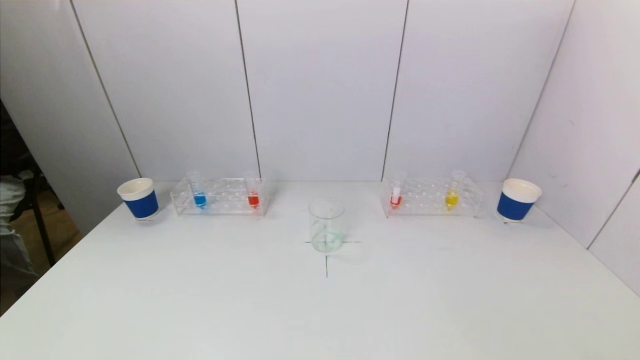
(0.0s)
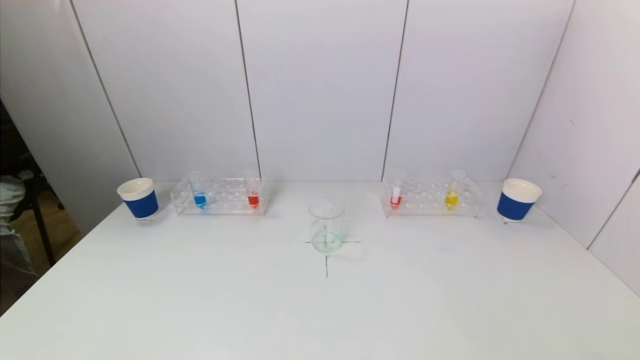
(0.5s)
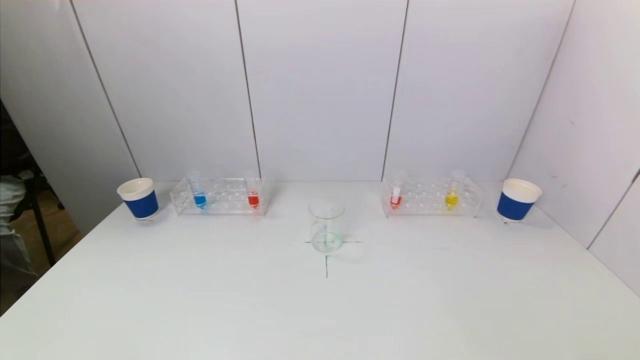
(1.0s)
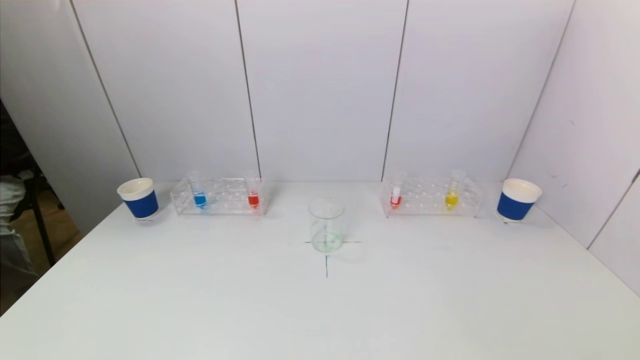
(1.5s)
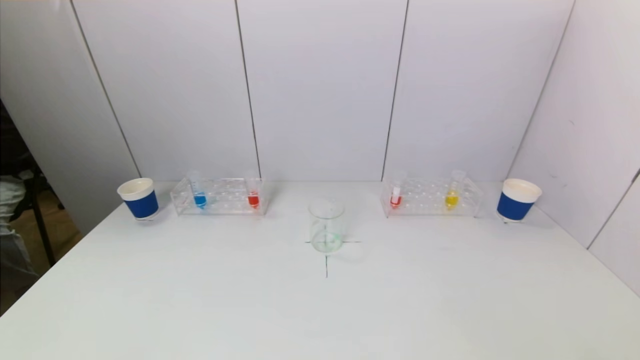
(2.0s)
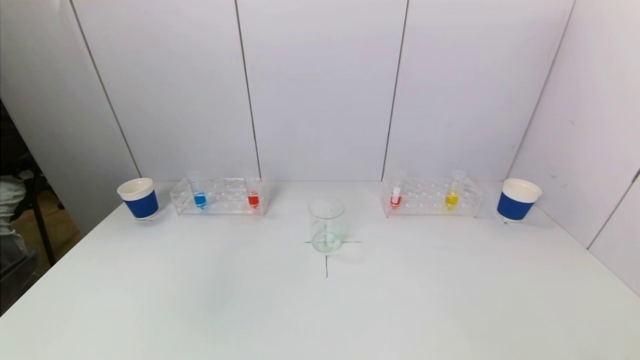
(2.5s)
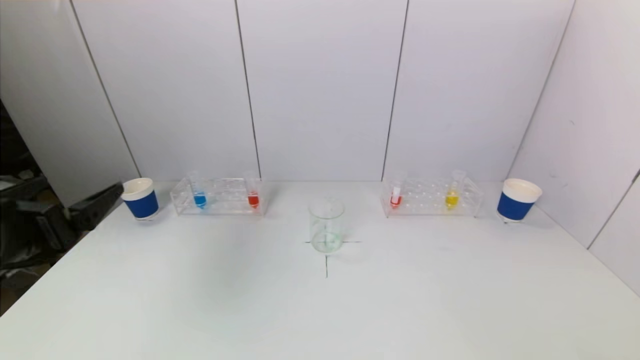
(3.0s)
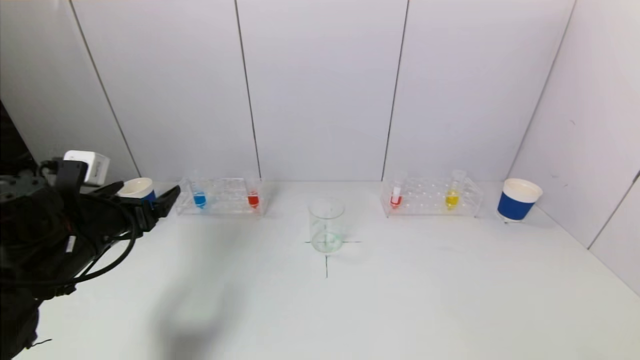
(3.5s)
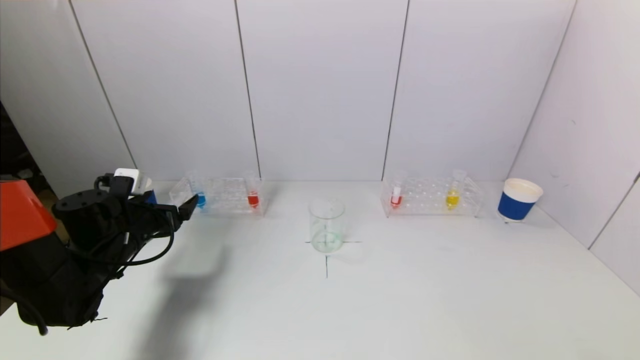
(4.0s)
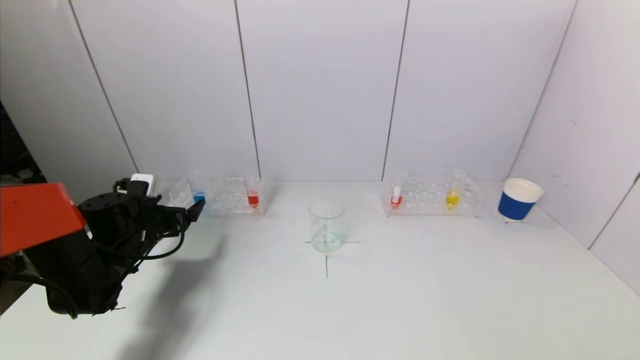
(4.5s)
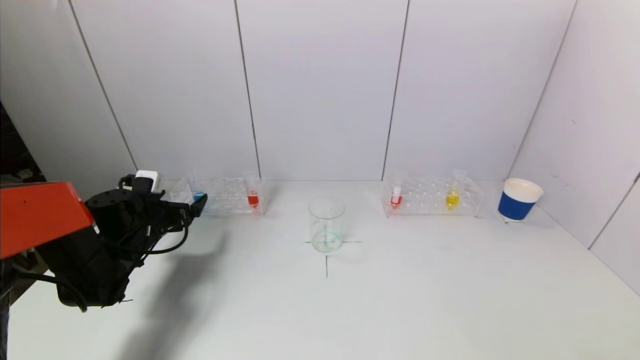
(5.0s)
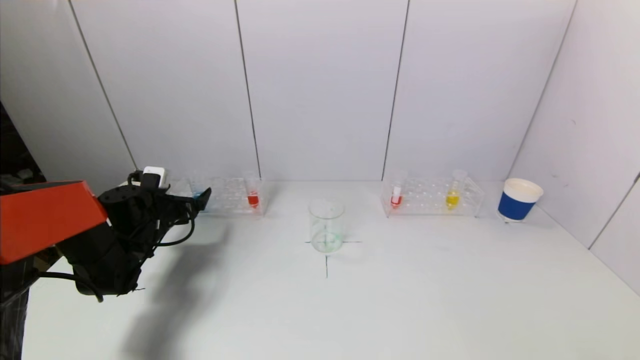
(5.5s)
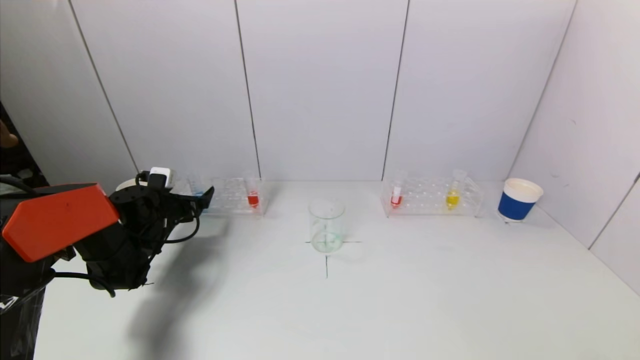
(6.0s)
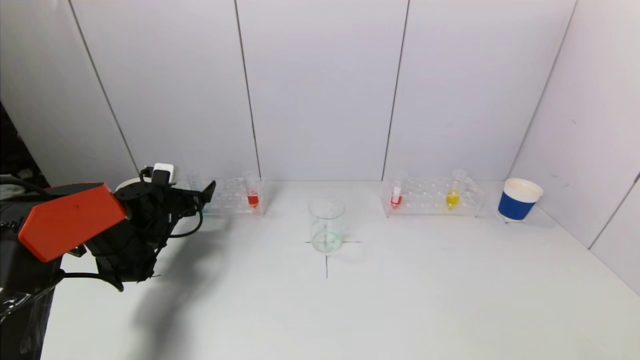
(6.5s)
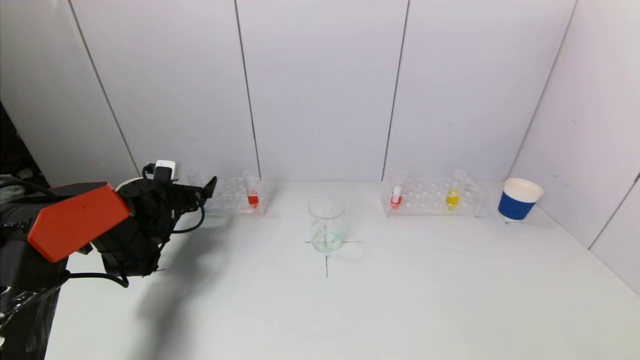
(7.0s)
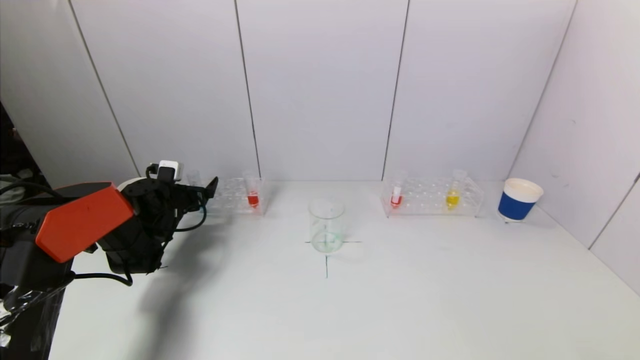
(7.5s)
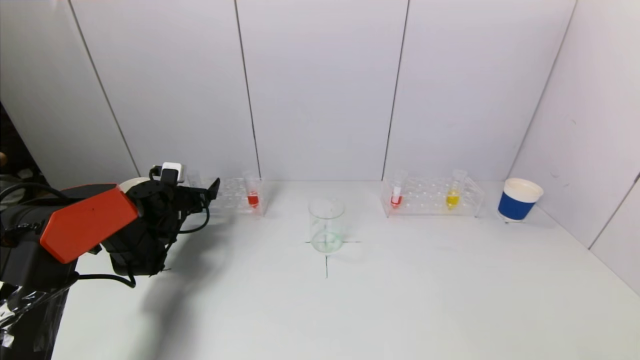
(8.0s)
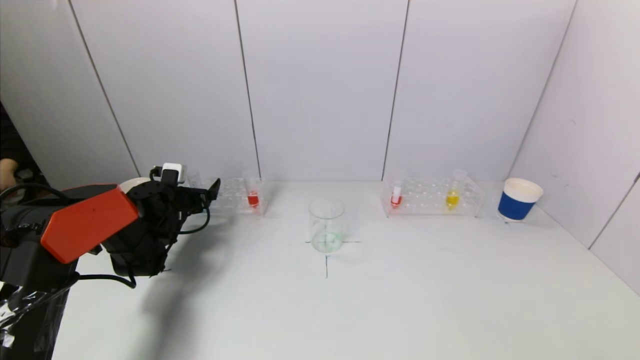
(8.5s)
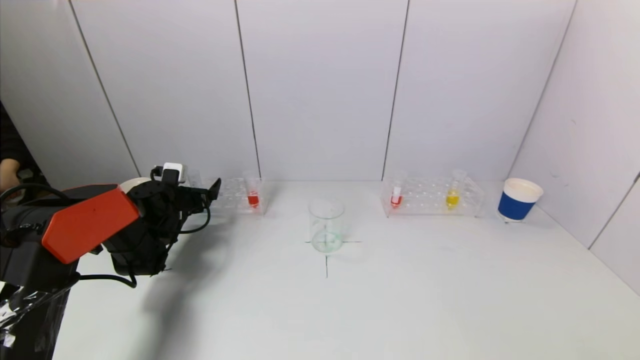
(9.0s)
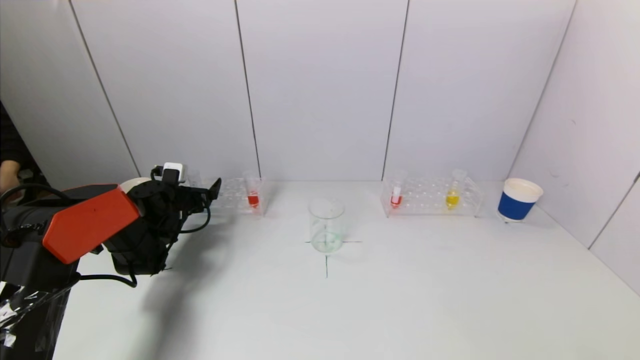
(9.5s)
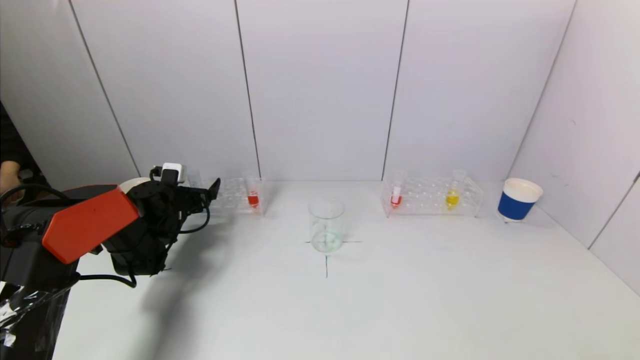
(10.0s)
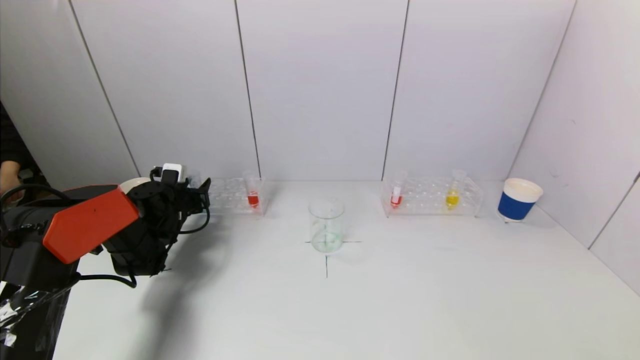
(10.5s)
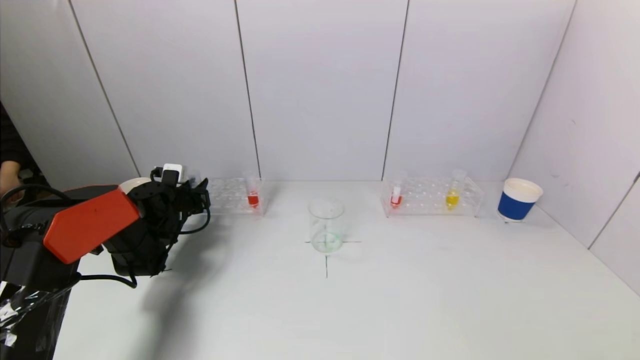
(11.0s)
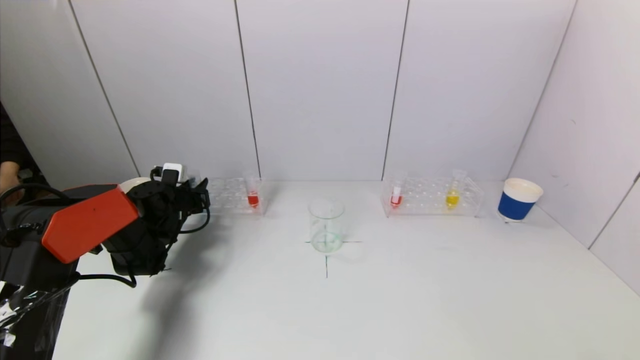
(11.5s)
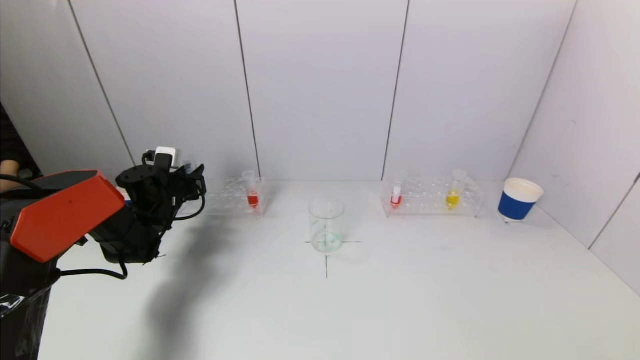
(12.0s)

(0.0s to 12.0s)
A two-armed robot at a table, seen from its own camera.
Task of the whole recording: pick up a test tube with pigment on left test tube rack and a test tube with pigment on right test tube rack by grippers and pour them into the beaker.
Step, 0.0s - 11.0s: Grasp the blue reagent with the left gripper.
2.0s - 4.0s: The left gripper goes roughly 35 cm forward.
4.0s - 6.0s: The left gripper moves forward, approximately 10 cm.
6.0s - 8.0s: The grippers move only a little.
8.0s - 10.0s: Both grippers stay put.
10.0s - 12.0s: The left gripper closes up.

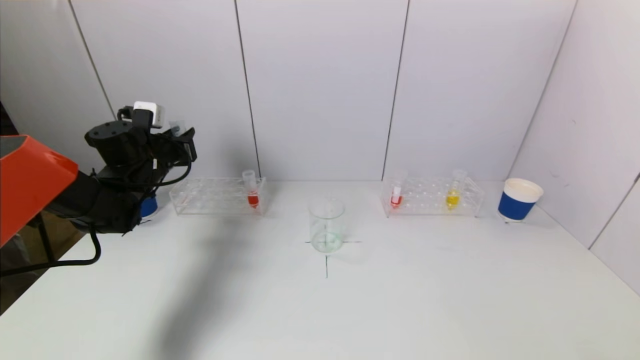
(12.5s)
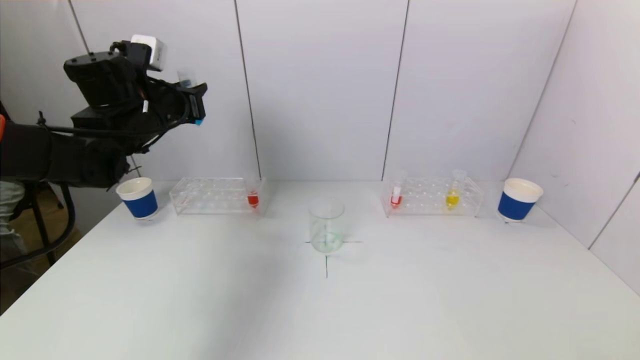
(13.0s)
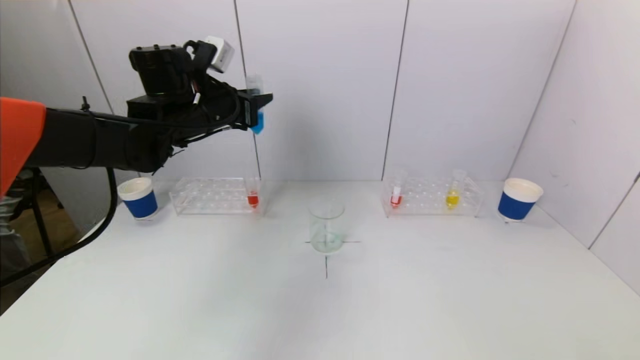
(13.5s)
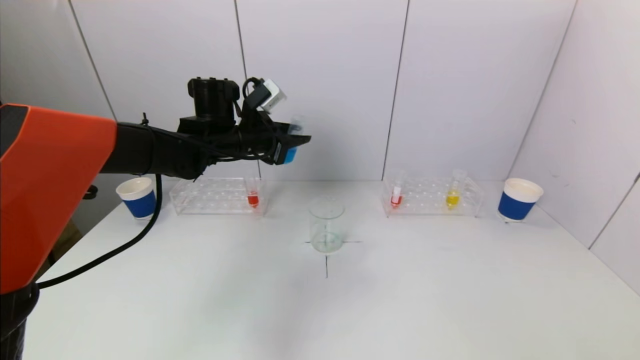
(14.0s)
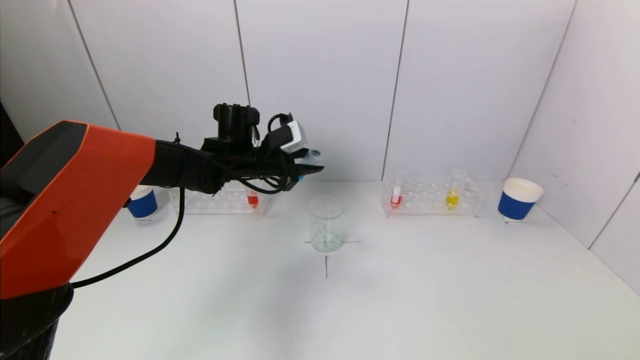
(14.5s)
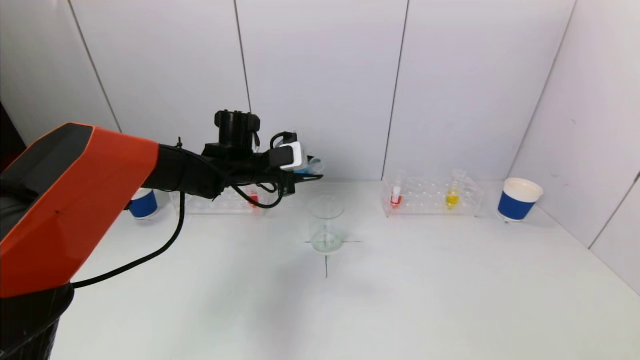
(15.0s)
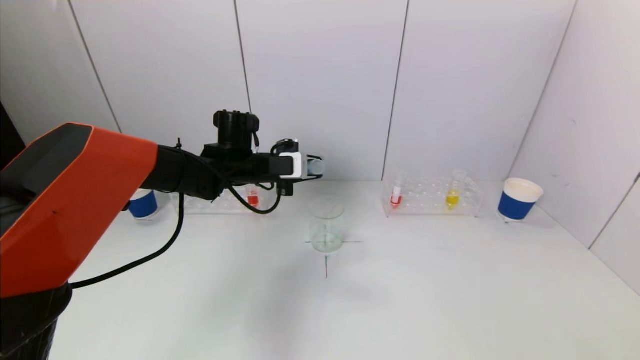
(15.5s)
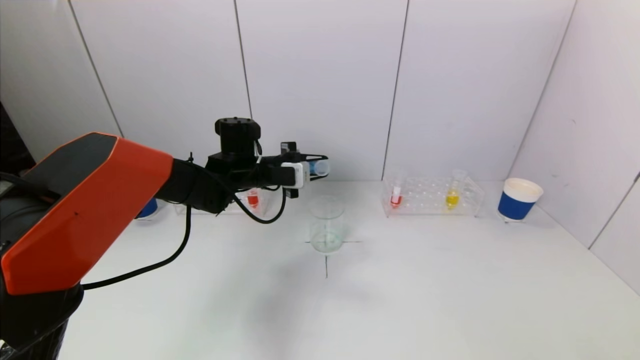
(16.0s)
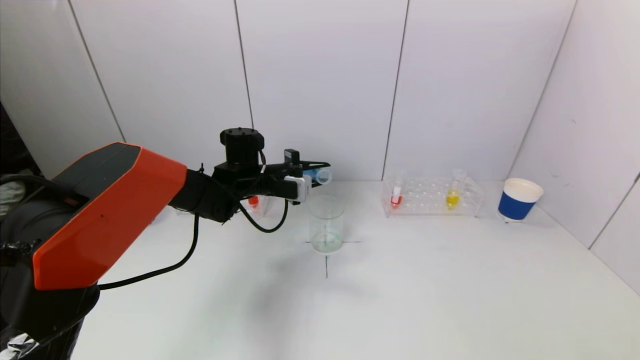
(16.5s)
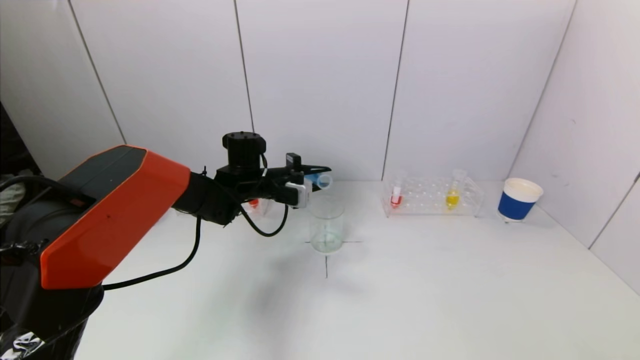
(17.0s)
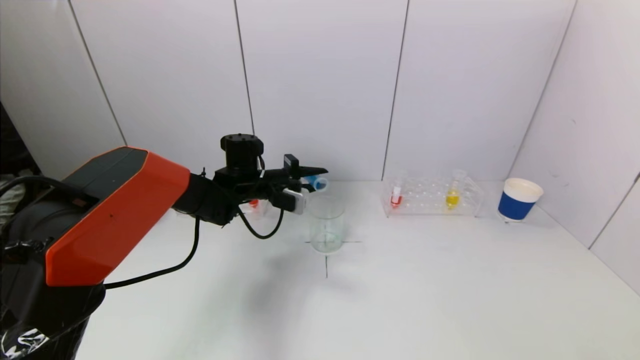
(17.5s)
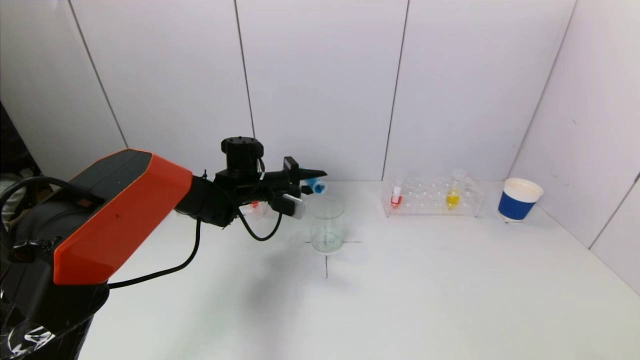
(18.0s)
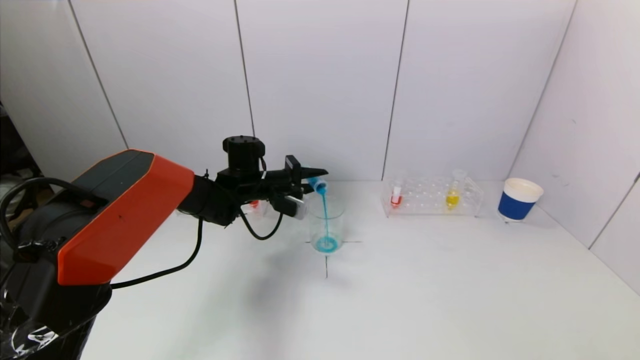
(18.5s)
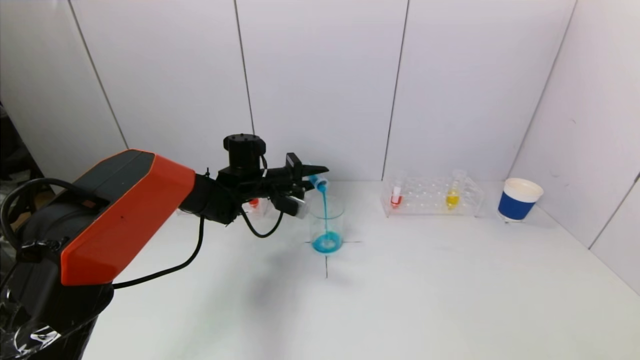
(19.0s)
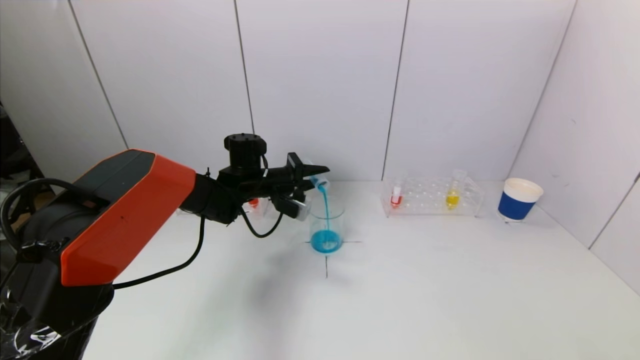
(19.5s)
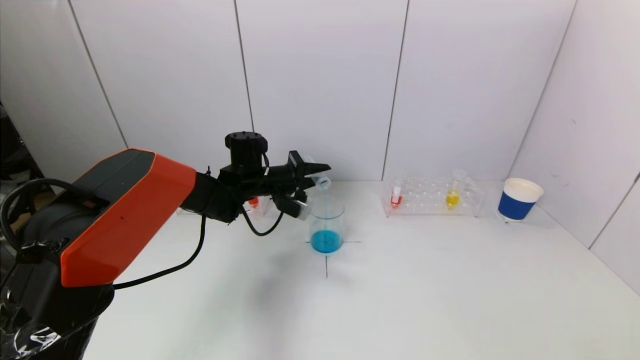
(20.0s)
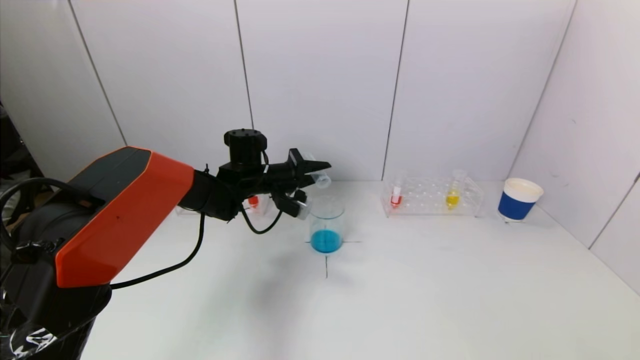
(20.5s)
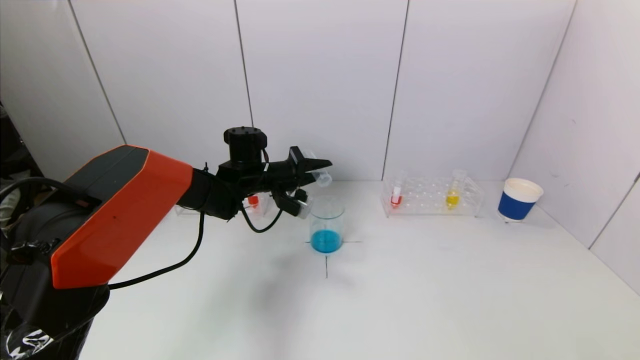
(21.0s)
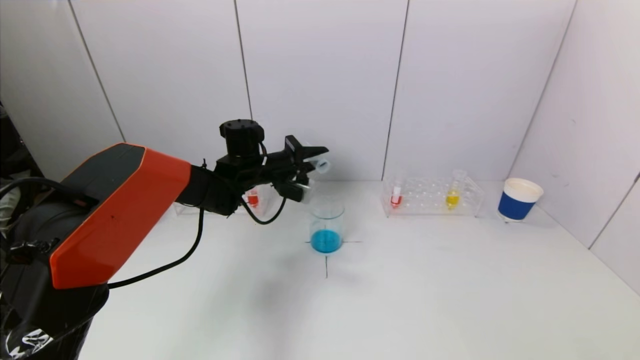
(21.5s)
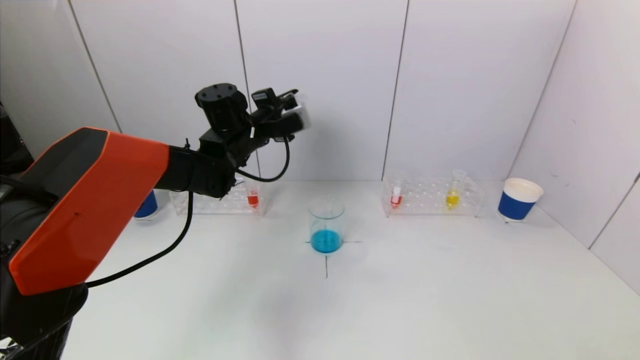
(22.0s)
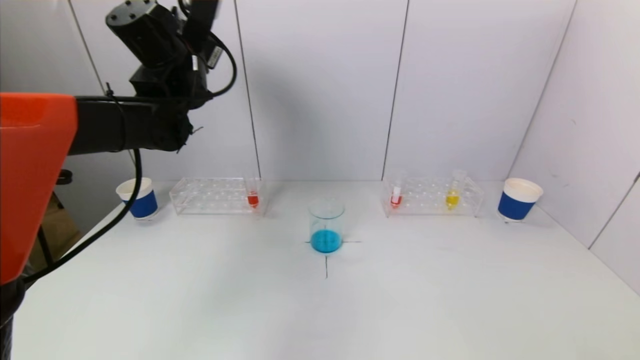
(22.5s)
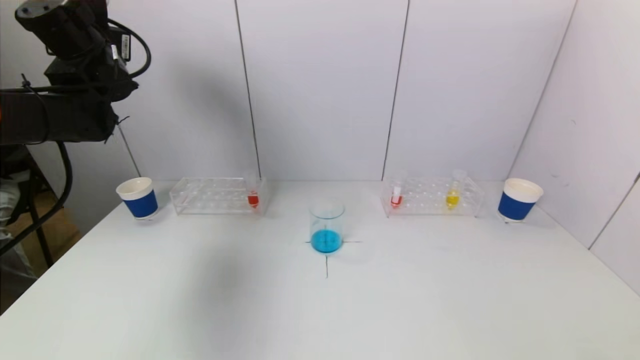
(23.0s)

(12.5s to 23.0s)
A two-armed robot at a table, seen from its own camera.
Task of the whole recording: pick up a test tube with pigment on left test tube rack and a test tube with pigment on right test tube rack by grippers and pour them into the beaker.
Step, 12.5s - 21.0s: Pour the blue reagent into the graduated cylinder with the left gripper.
12.5s - 14.5s: The left gripper shifts approximately 20 cm to the right.
16.5s - 19.0s: The grippers move only a little.
19.0s - 21.0s: The grippers move only a little.
21.0s - 23.0s: The left gripper goes approximately 30 cm upward and to the left.
